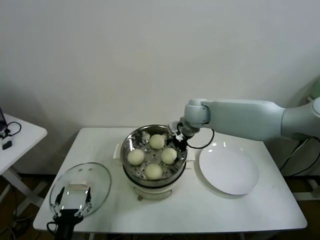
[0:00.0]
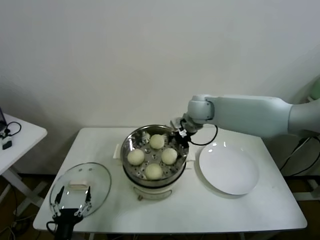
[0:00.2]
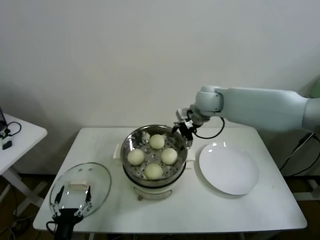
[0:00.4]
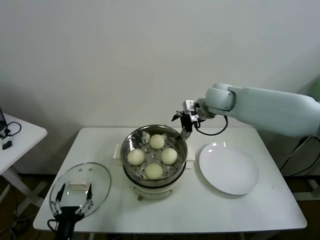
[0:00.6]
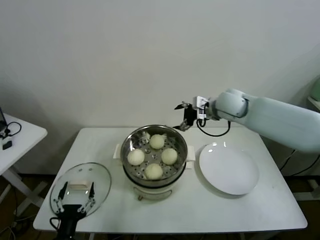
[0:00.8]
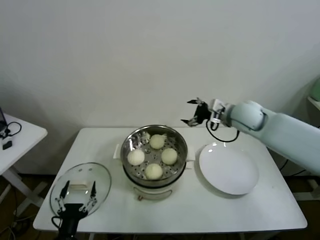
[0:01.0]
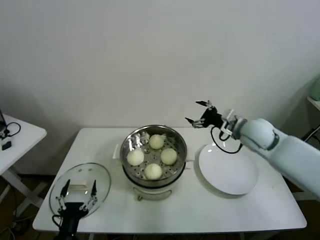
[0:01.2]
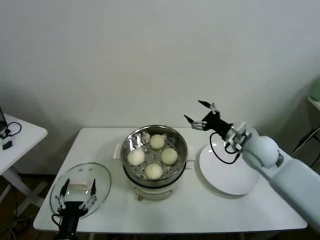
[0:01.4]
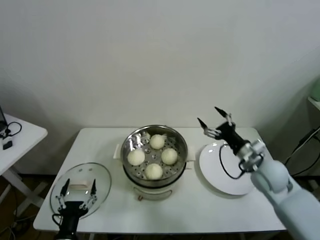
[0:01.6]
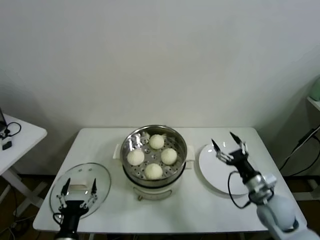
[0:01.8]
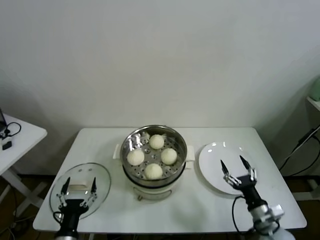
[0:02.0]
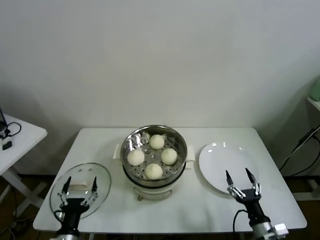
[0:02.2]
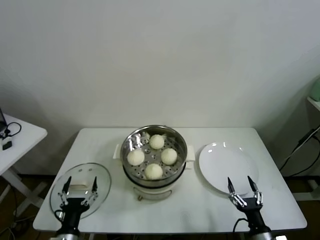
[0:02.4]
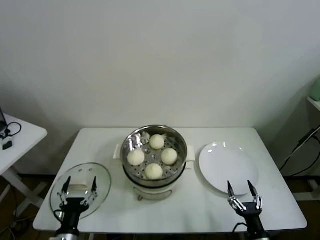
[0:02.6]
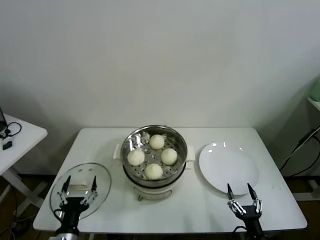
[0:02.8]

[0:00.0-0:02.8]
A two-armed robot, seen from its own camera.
Task of the whole recording: take steamed baozi put them in steamer.
0:00.0 to 0:01.4: The right gripper shifts approximately 20 cm to the right and backward.
0:01.4 to 0:02.8: The right gripper travels backward and downward by roughly 40 cm.
